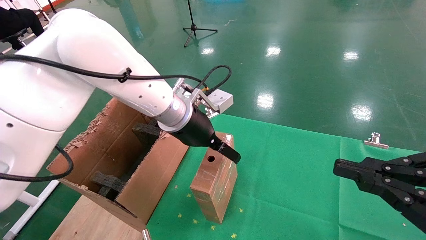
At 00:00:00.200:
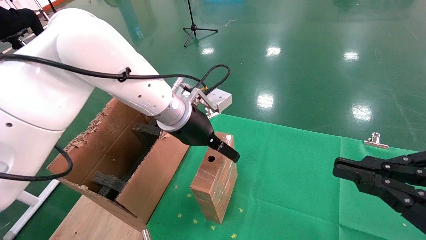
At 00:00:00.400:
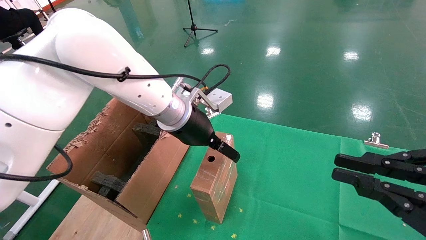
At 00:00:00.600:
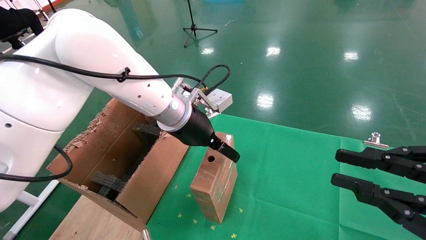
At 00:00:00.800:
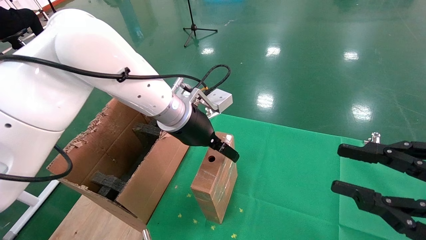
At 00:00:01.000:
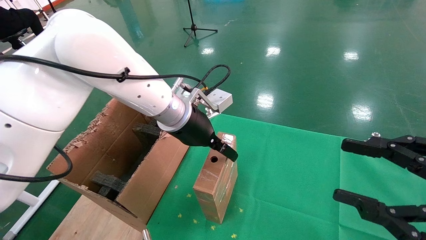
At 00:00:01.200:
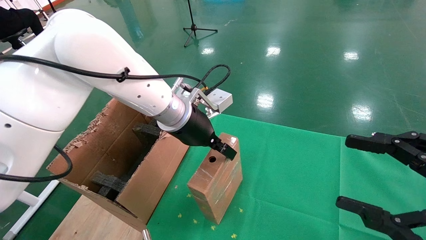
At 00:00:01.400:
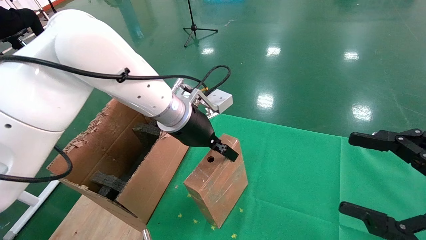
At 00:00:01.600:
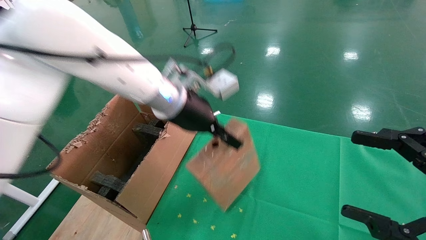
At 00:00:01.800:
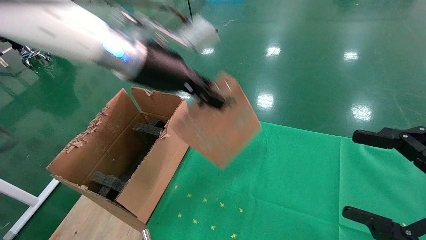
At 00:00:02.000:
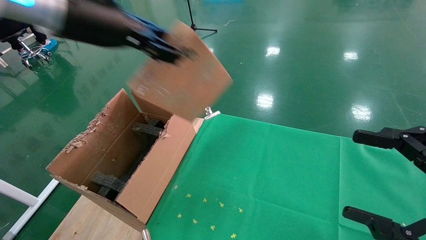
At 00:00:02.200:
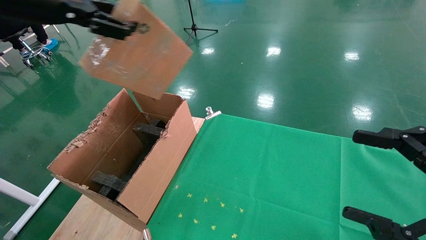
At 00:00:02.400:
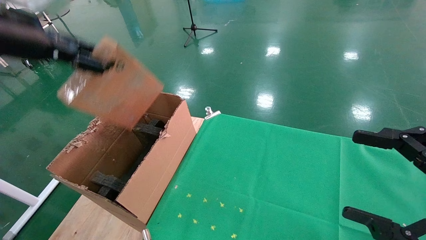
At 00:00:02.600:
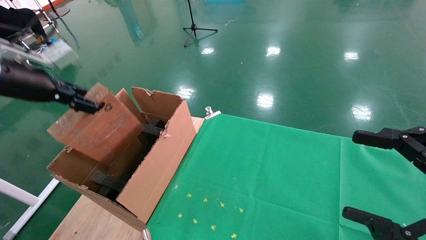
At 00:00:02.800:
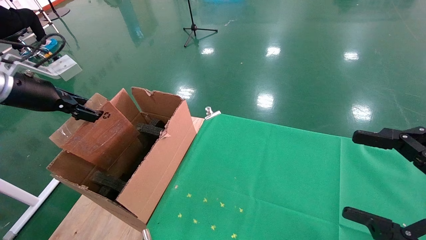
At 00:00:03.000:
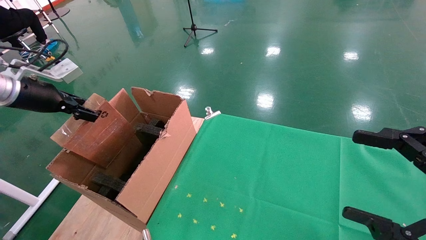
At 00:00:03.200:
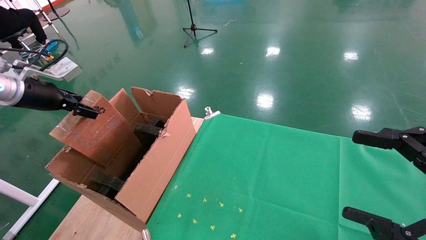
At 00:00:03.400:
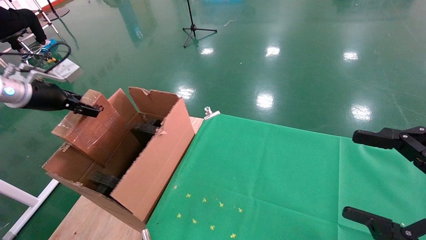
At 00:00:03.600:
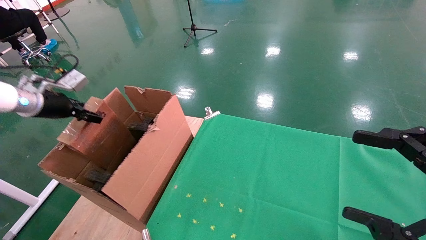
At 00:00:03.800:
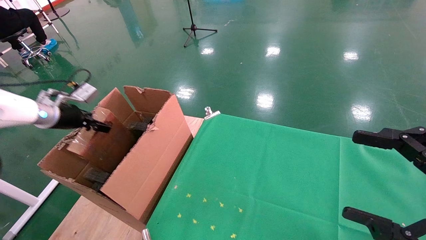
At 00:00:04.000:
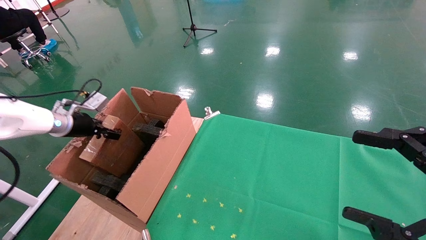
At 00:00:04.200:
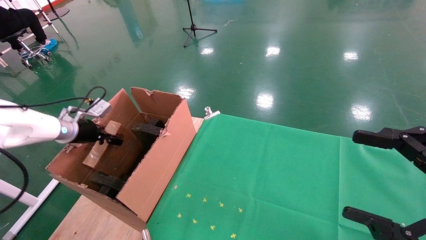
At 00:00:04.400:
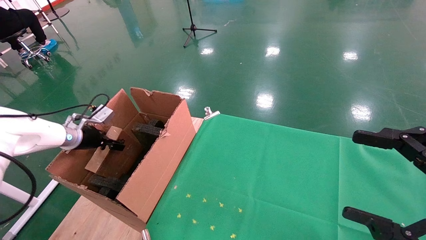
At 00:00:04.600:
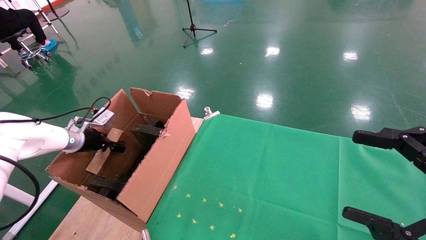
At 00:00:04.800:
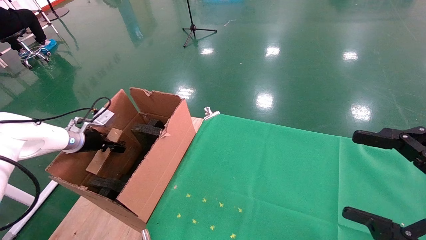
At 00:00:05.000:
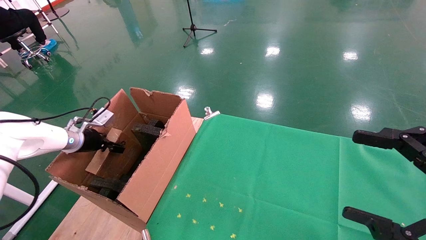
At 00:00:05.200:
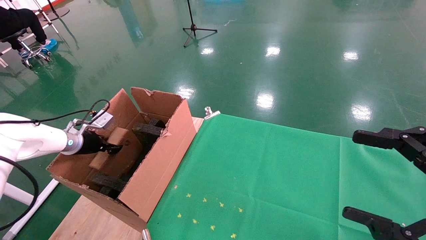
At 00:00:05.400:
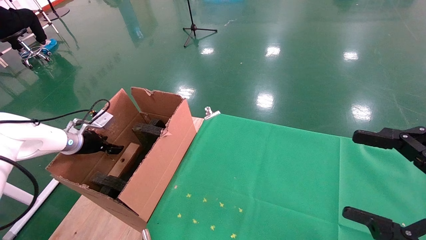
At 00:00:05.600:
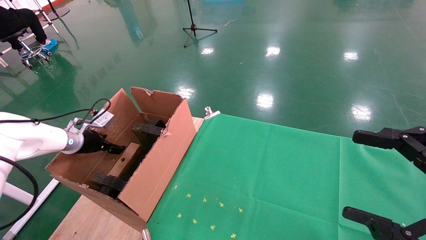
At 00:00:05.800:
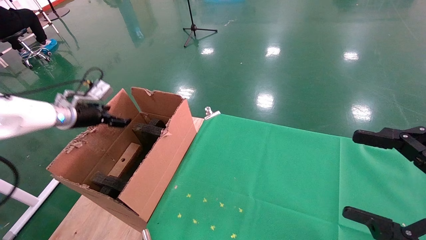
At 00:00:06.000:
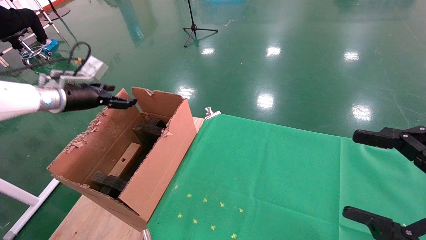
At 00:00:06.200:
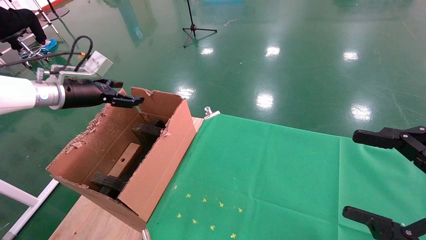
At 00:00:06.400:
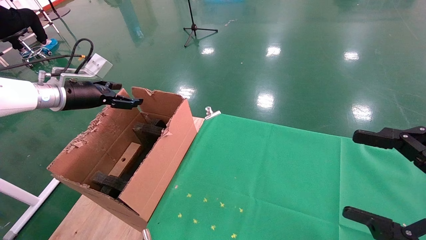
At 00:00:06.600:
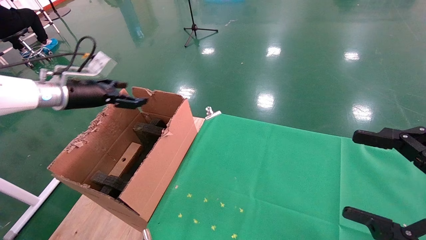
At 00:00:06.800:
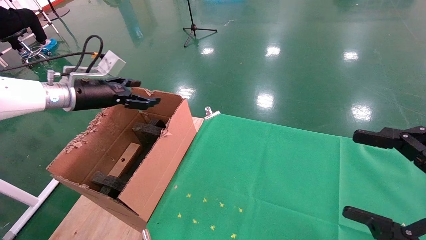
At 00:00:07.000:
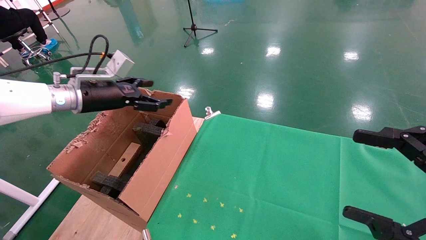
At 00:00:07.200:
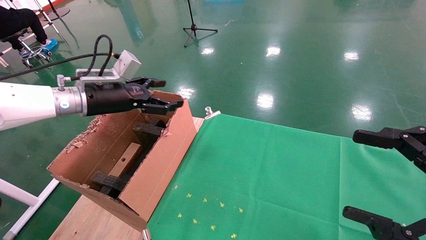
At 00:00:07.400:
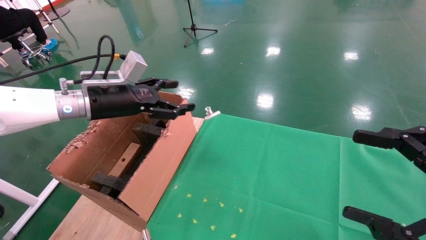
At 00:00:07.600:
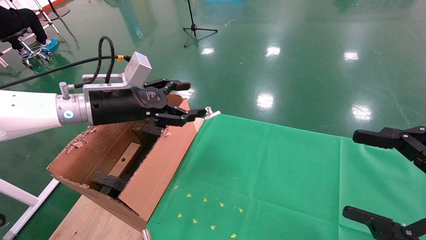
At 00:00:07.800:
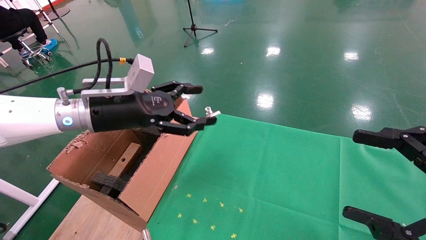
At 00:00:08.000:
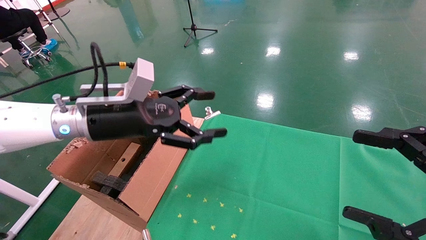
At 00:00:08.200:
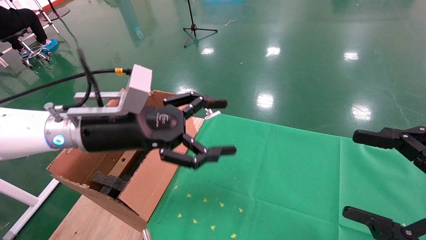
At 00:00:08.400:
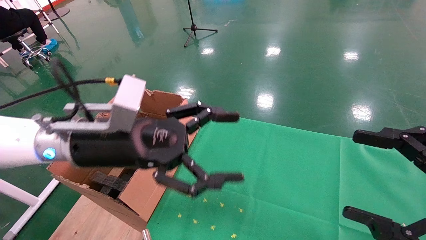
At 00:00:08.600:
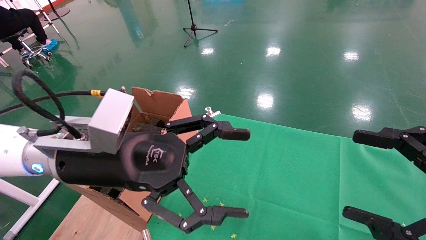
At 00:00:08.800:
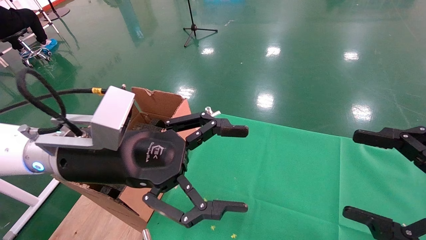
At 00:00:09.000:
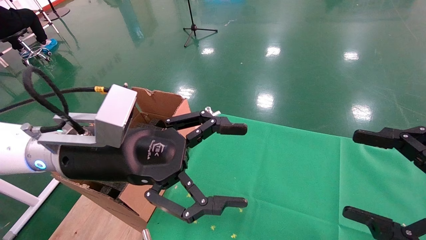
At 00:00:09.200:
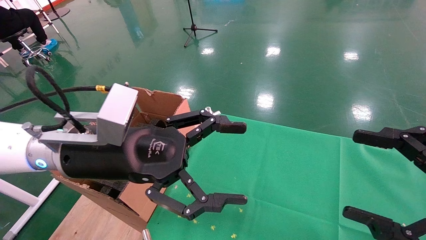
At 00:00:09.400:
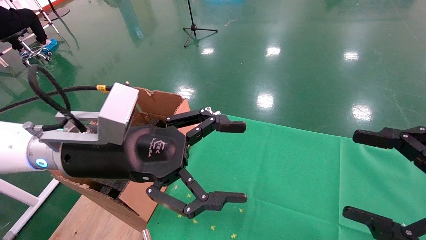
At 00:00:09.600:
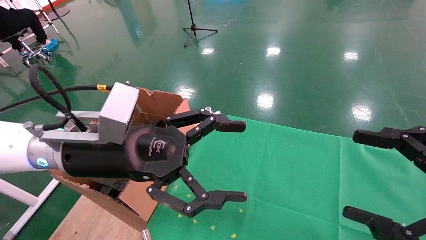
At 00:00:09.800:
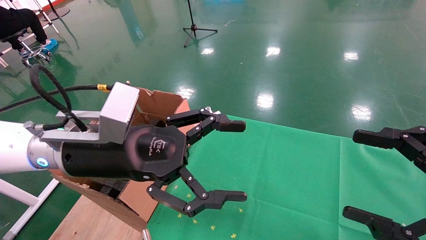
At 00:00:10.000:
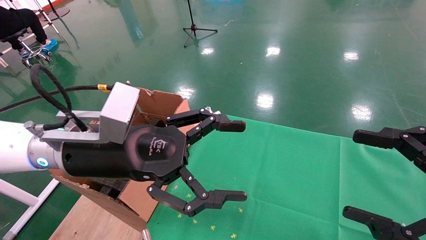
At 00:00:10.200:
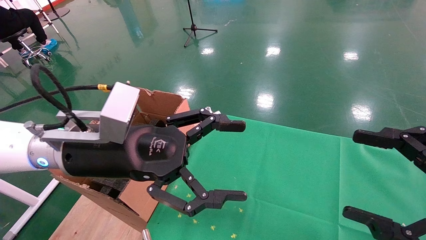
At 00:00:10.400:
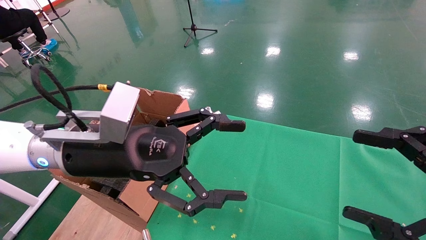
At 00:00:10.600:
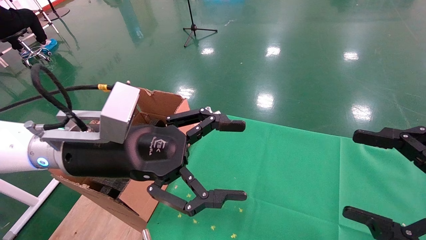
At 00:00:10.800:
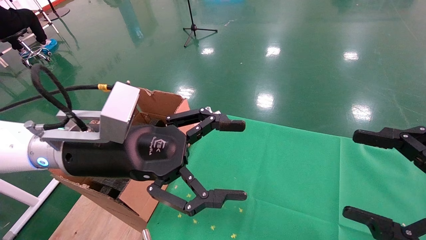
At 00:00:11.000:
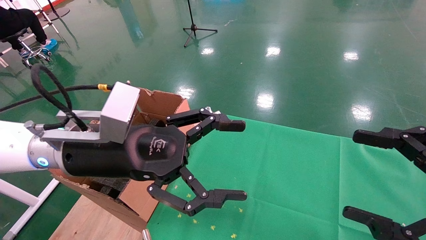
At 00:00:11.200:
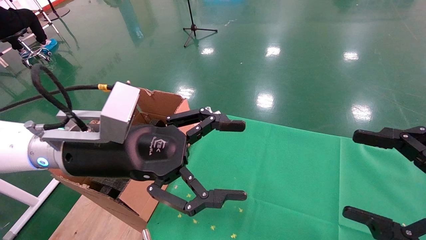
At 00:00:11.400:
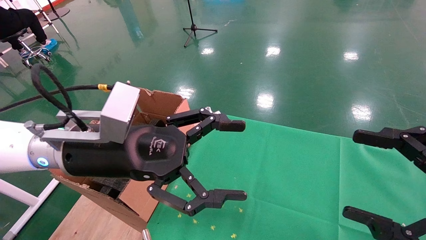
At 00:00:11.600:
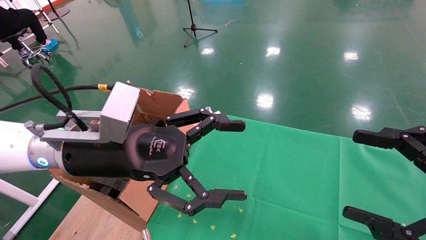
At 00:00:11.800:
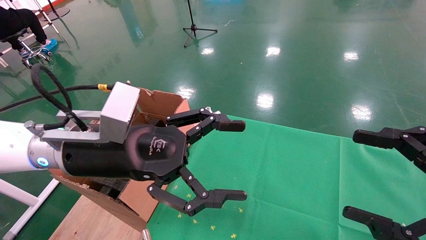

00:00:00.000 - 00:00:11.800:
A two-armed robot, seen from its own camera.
Task of the whole recording: using a robotic arm to pick up a cardboard box and palace it the carton.
Step, 00:00:01.400 - 00:00:06.000: Place the mouse and the power cord paper box into the container.
00:00:00.000 - 00:00:01.400: The left gripper closes up. Meanwhile the right gripper opens.
00:00:01.400 - 00:00:03.000: The left gripper travels to the left by roughly 35 cm.
00:00:03.000 - 00:00:04.400: The left gripper heads downward and forward, covering some 20 cm.
00:00:04.400 - 00:00:06.000: The left gripper is displaced upward by approximately 10 cm, and opens its fingers.
00:00:06.000 - 00:00:07.400: The left gripper is displaced to the right by roughly 15 cm.
00:00:07.400 - 00:00:08.800: The left gripper shifts some 20 cm backward and to the right.
00:00:08.800 - 00:00:11.800: Neither gripper changes place.
